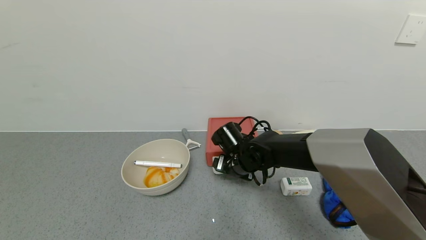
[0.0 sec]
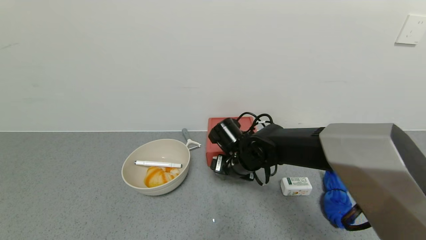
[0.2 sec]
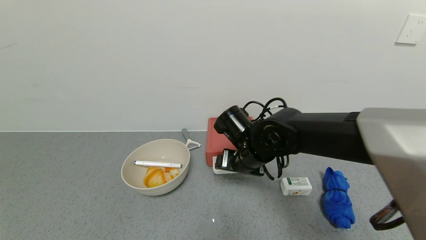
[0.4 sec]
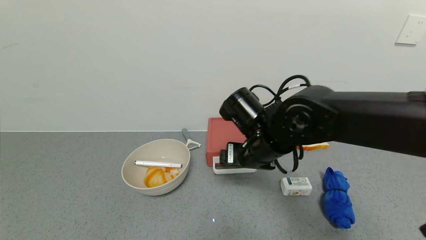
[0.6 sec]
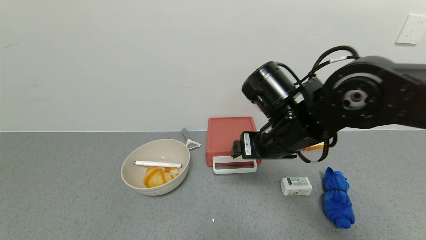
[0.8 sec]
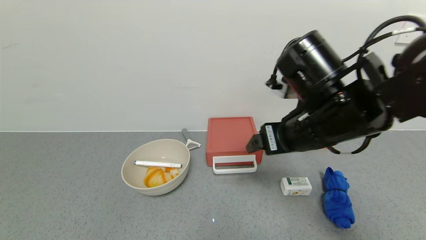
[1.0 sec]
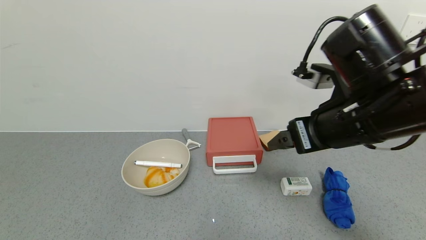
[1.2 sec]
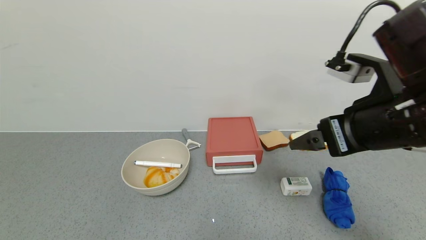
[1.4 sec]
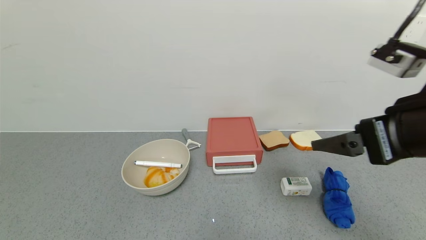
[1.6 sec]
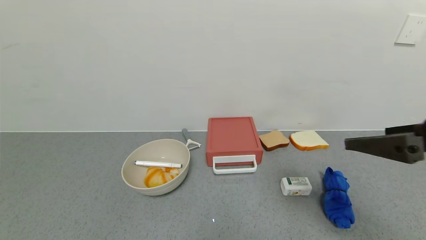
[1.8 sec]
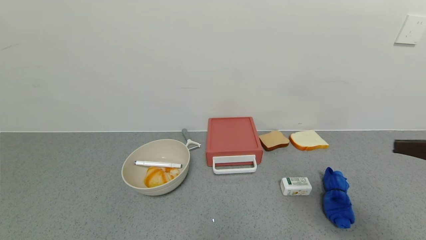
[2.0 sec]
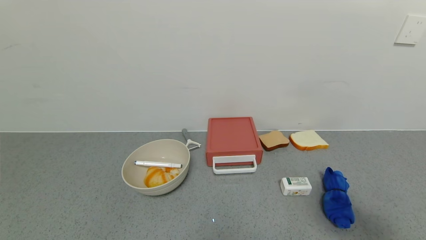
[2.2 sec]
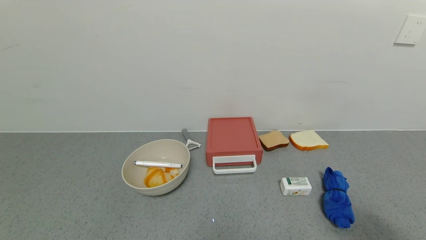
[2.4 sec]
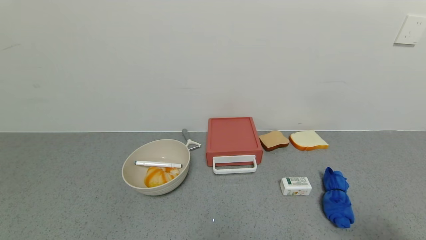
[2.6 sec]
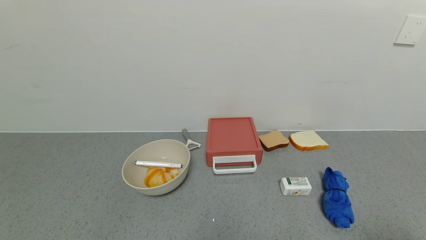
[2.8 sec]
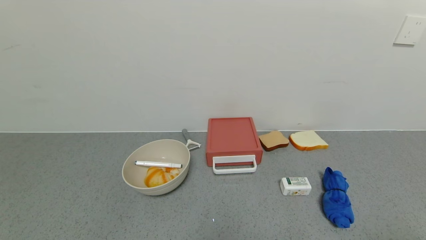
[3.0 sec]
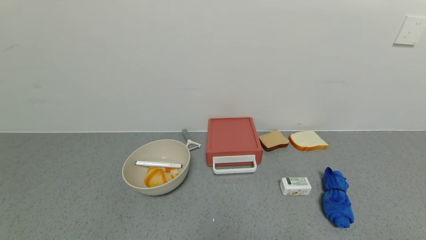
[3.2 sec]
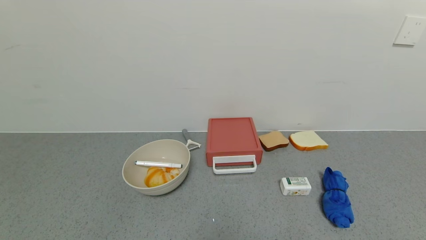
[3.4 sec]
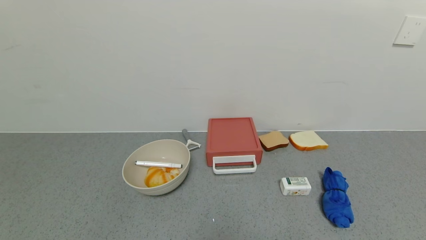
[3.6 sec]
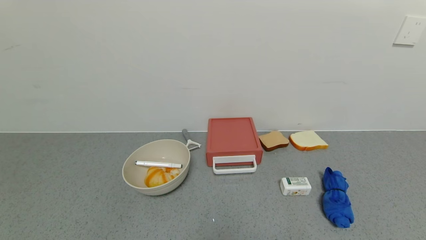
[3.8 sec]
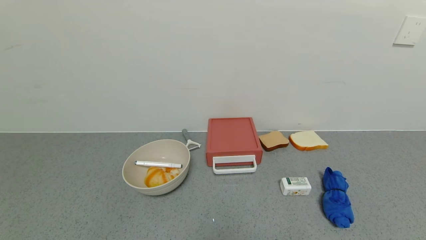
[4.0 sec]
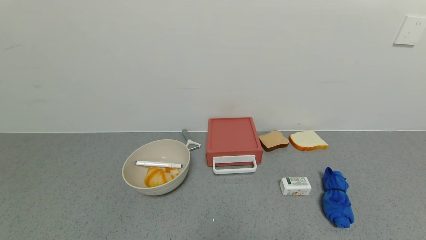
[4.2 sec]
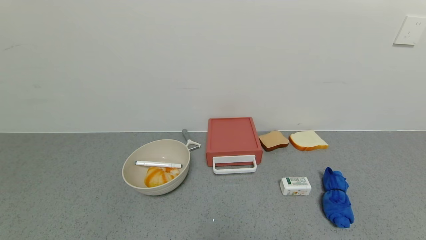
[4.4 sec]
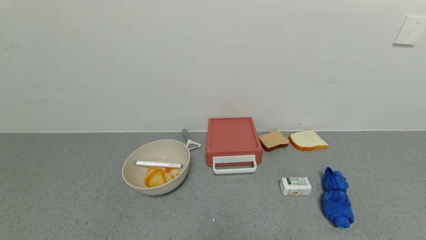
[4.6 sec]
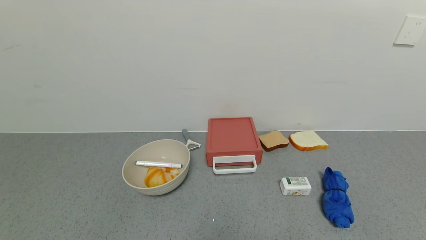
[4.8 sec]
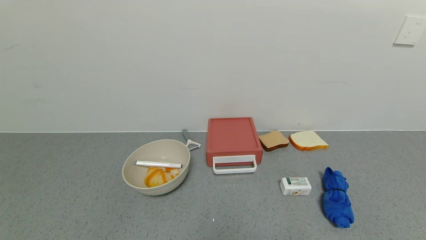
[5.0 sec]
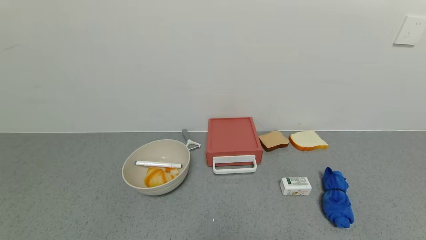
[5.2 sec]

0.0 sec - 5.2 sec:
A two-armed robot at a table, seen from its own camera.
Task of the whole recording: use the gripper to open the drawer and close the red drawer.
0.0 sec - 1.8 sec: The right gripper shifts roughly 40 cm upward, backward and to the right.
1.8 sec - 3.4 sec: The right gripper shifts some 25 cm backward and to the right.
